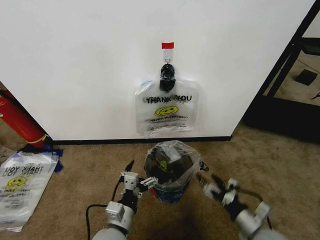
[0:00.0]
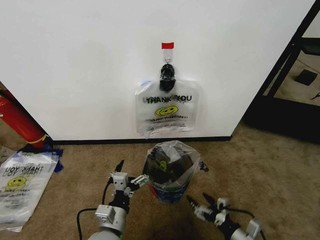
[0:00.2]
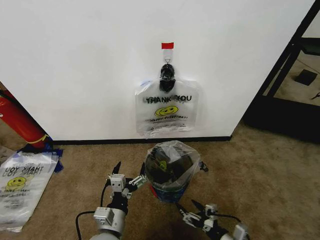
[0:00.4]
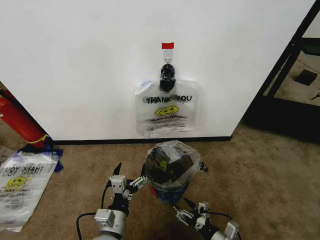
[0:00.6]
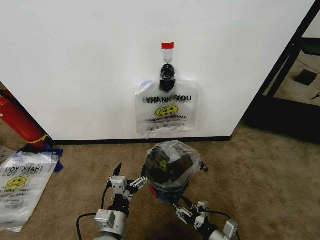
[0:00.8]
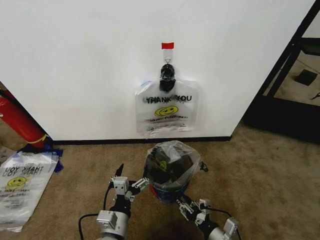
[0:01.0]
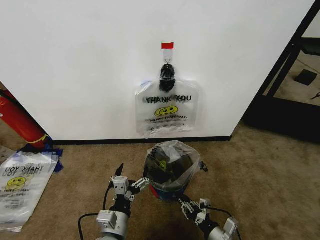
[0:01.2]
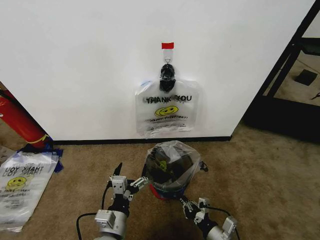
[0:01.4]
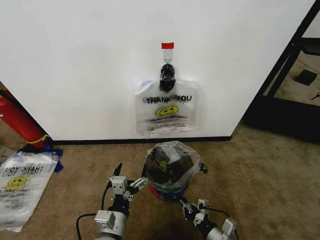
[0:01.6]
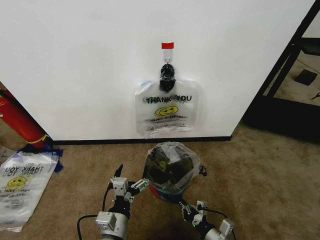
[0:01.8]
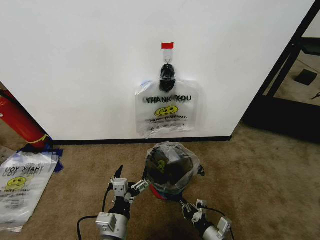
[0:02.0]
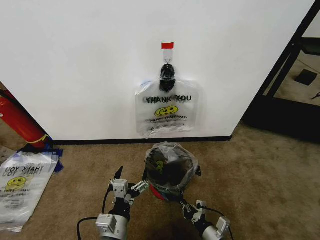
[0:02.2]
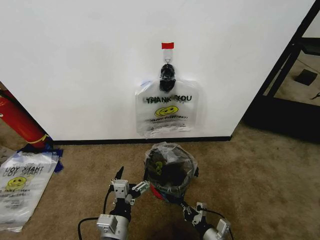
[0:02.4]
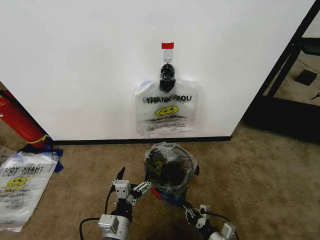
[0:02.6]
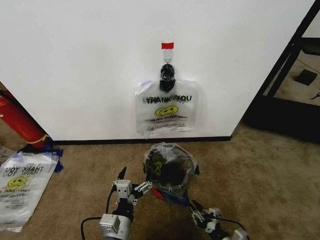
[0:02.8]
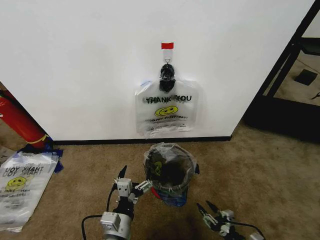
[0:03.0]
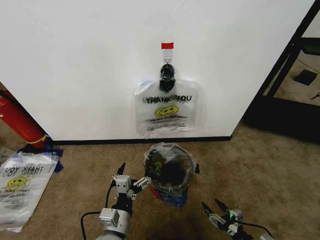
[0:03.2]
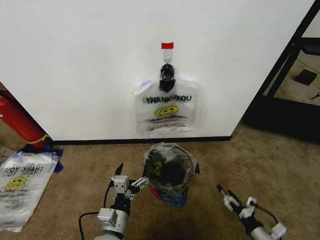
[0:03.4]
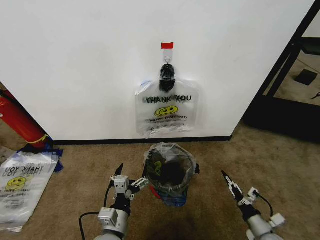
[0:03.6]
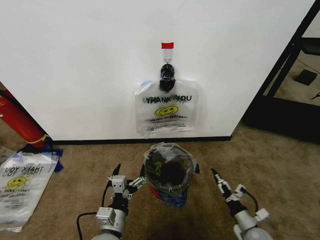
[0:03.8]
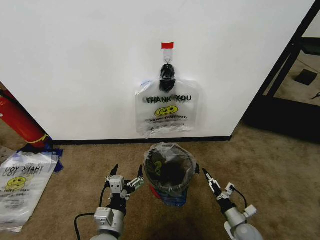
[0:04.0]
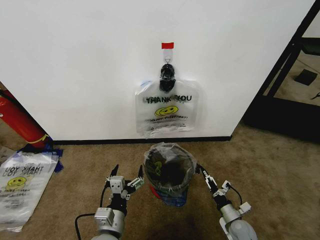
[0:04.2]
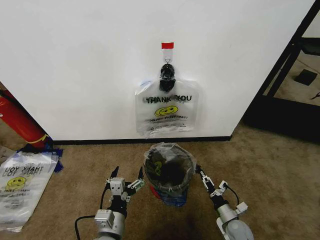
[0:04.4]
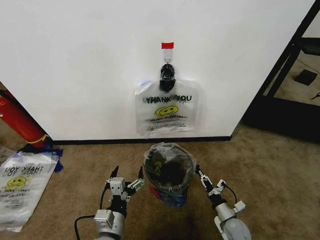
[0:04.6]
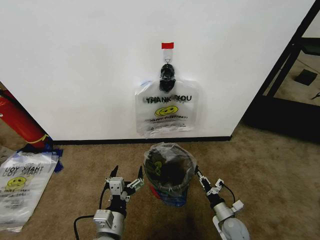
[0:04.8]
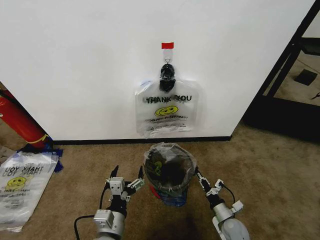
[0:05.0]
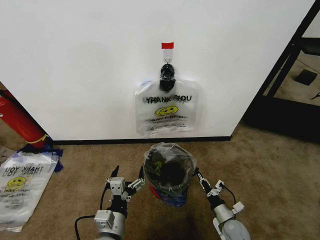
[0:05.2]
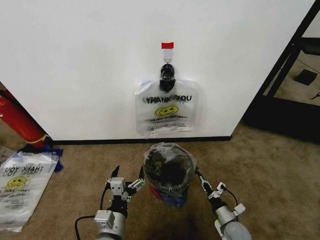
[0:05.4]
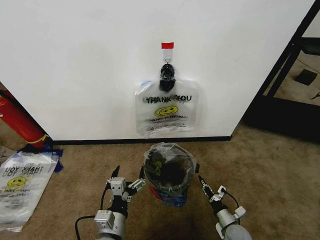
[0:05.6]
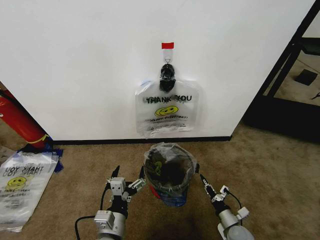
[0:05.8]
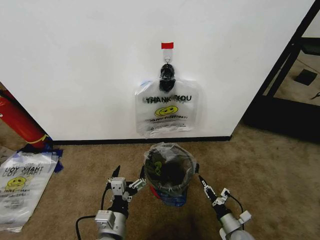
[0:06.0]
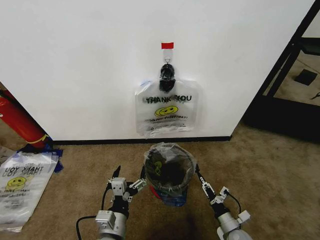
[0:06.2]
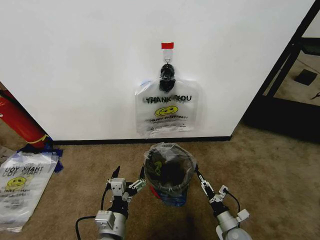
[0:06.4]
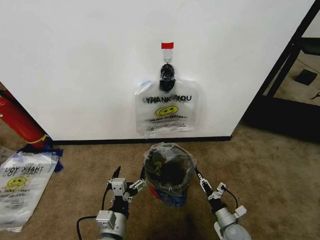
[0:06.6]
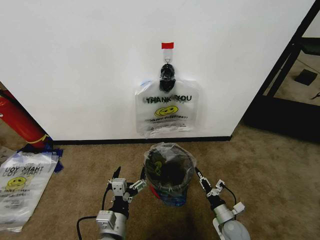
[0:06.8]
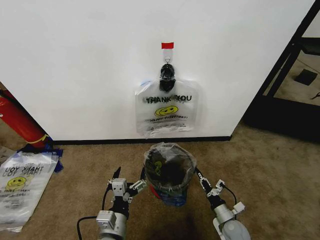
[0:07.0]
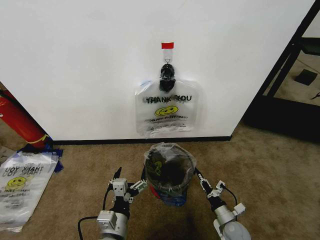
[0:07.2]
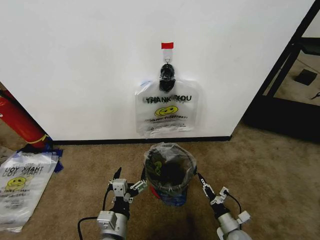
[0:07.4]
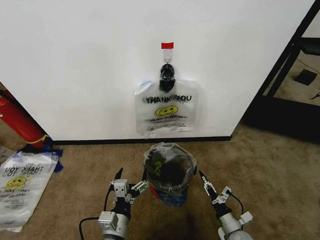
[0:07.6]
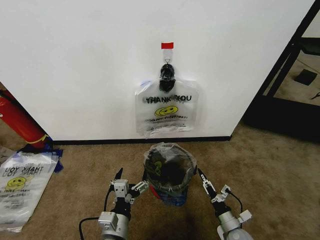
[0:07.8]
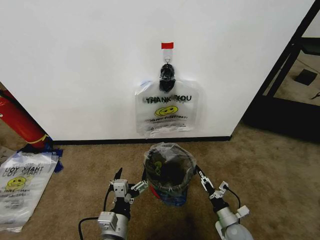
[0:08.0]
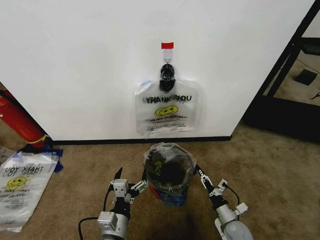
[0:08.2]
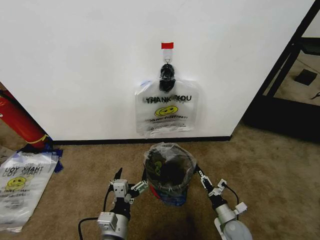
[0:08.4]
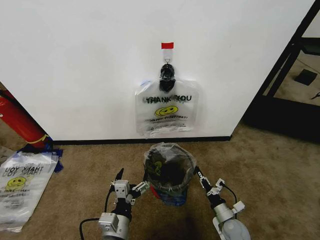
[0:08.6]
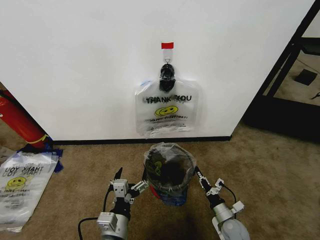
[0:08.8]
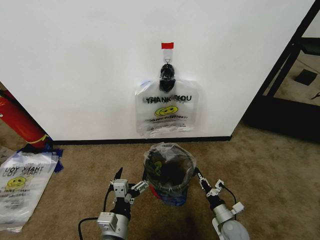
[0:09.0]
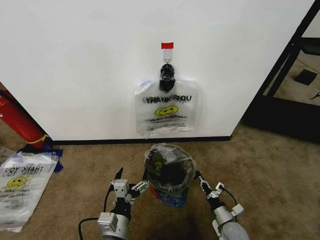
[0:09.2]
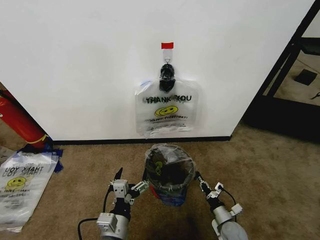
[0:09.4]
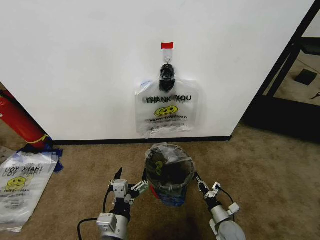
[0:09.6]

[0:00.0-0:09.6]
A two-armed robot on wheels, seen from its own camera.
Task of the whole recording: Pick up the garbage bag from the wall and place it over the trash bin.
0:00.0 to 0:01.6: The right gripper travels to the left and downward by approximately 10 cm, and closes up.
0:01.6 to 0:03.2: The right gripper moves to the right, roughly 10 cm, and opens its fingers.
0:03.2 to 0:04.8: The right gripper goes about 15 cm forward, downward and to the left, and closes.
0:04.8 to 0:06.4: The right gripper opens its fingers.
0:06.4 to 0:08.0: The right gripper closes and opens again.
0:08.0 to 0:09.6: The right gripper closes its fingers.

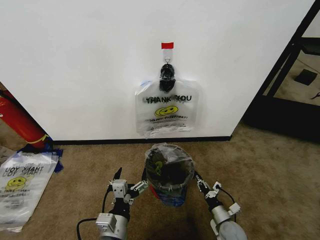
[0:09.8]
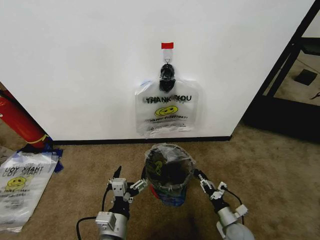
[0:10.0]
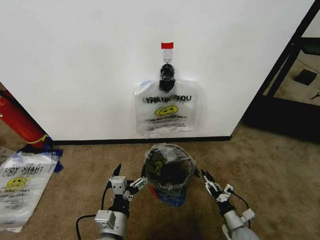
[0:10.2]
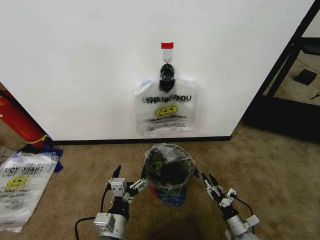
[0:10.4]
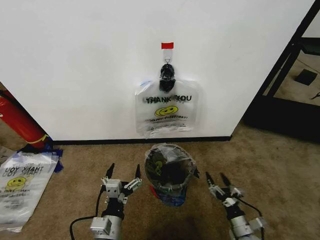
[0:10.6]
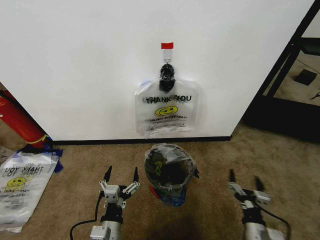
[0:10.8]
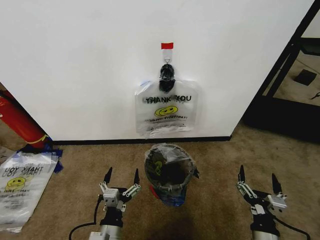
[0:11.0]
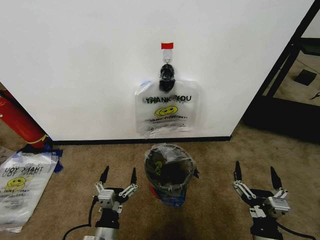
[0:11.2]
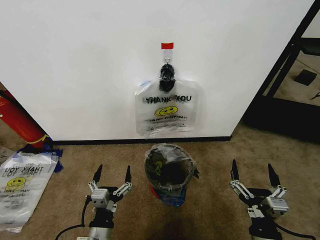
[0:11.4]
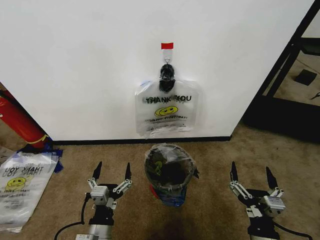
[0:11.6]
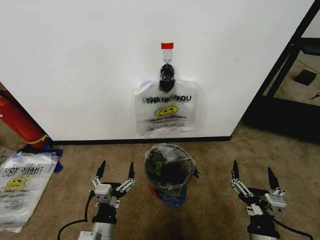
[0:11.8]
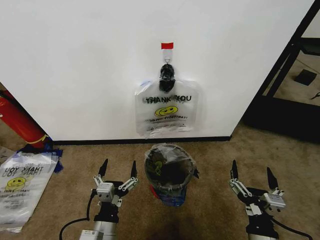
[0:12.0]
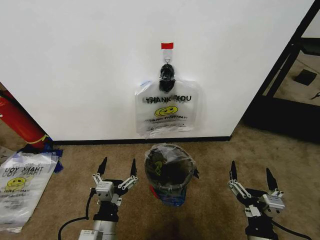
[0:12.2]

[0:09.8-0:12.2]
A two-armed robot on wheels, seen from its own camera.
Task of the whole recording: Pick up the garbage bag from the wall and place it over the trash bin.
0:09.8 to 0:11.0: The right gripper travels upward and backward by roughly 20 cm, and opens.
0:11.0 to 0:12.2: The right gripper shifts roughly 5 cm upward.

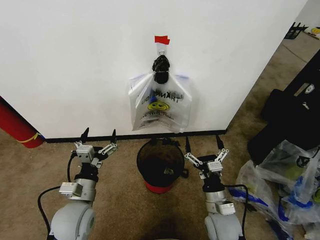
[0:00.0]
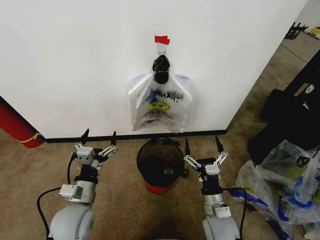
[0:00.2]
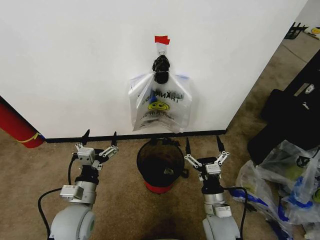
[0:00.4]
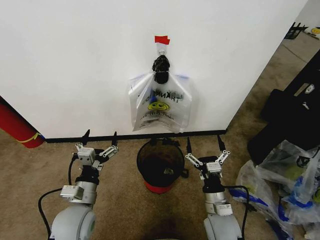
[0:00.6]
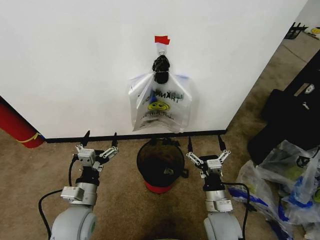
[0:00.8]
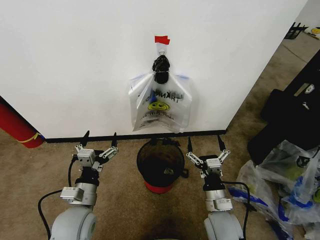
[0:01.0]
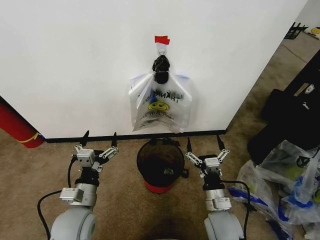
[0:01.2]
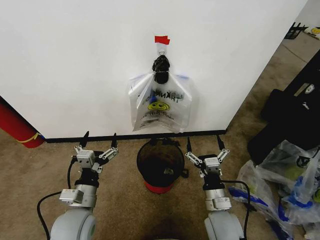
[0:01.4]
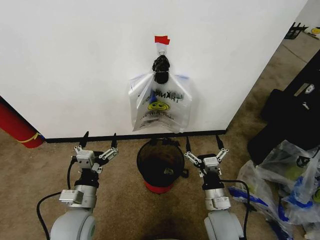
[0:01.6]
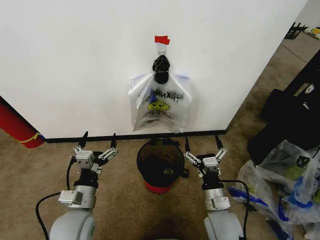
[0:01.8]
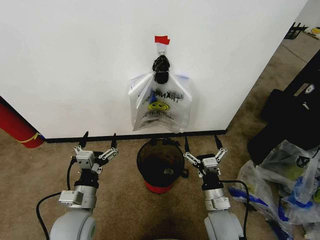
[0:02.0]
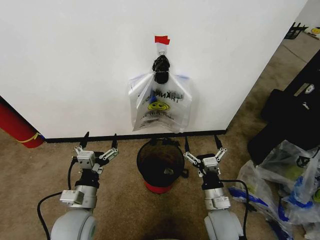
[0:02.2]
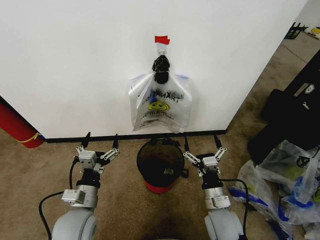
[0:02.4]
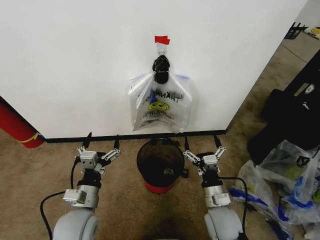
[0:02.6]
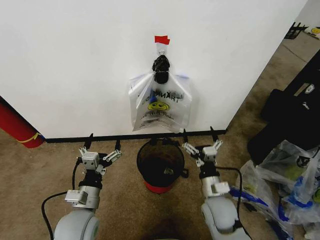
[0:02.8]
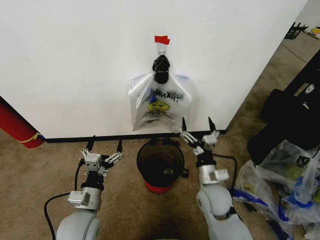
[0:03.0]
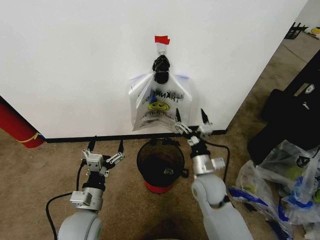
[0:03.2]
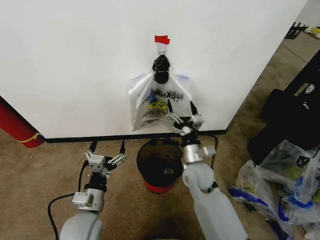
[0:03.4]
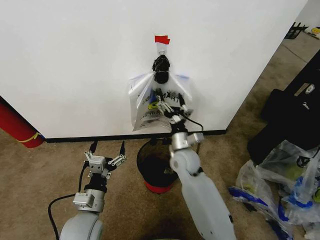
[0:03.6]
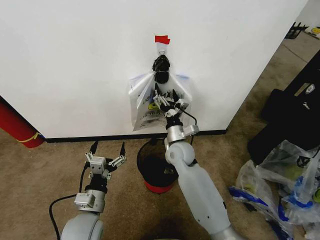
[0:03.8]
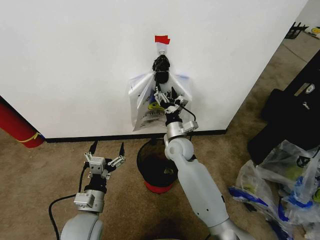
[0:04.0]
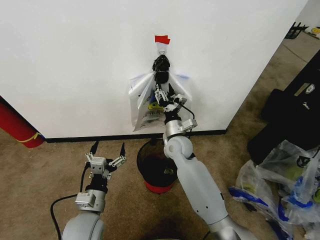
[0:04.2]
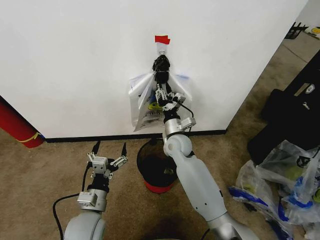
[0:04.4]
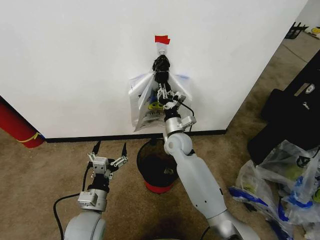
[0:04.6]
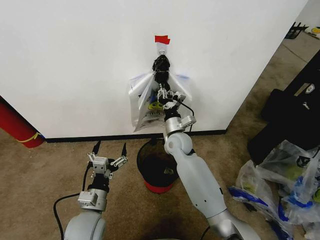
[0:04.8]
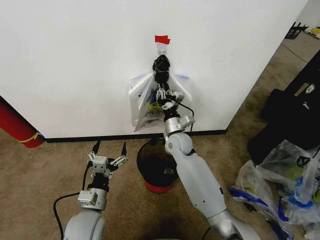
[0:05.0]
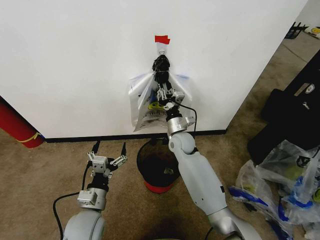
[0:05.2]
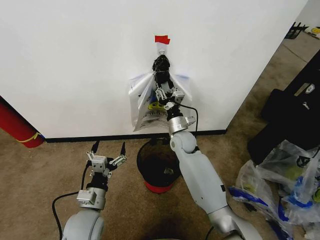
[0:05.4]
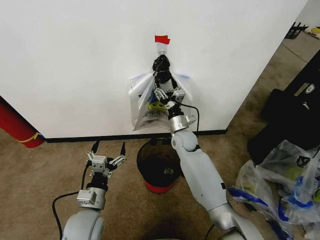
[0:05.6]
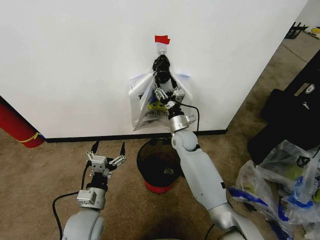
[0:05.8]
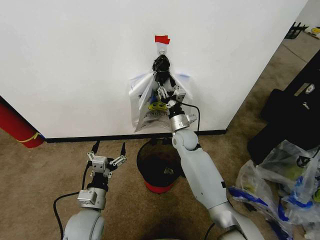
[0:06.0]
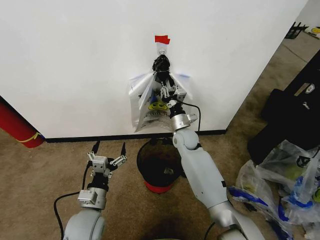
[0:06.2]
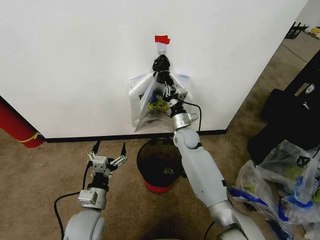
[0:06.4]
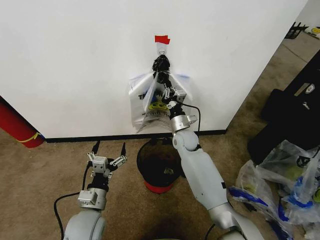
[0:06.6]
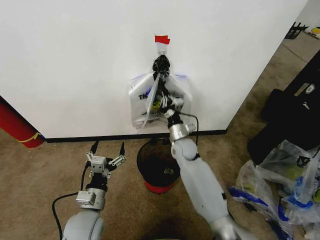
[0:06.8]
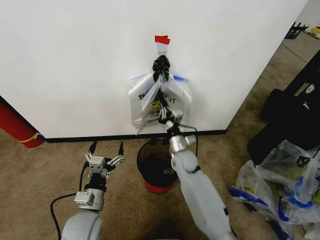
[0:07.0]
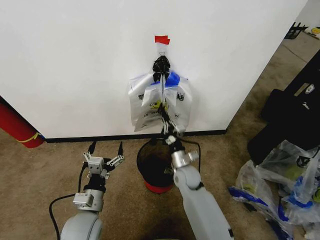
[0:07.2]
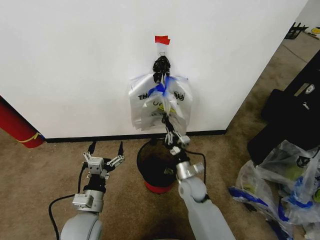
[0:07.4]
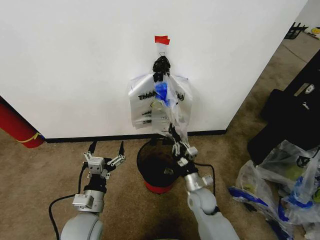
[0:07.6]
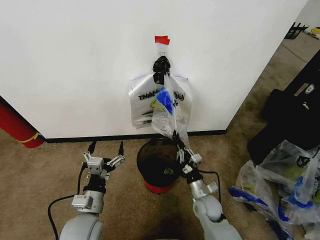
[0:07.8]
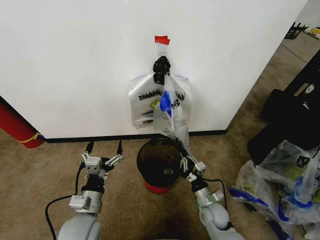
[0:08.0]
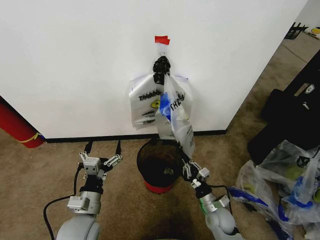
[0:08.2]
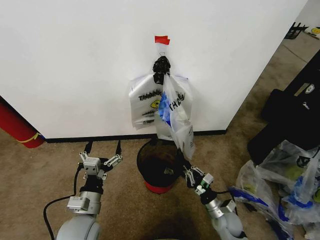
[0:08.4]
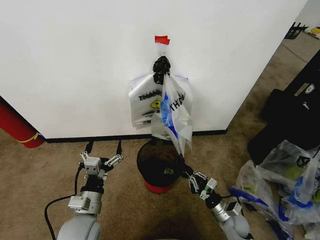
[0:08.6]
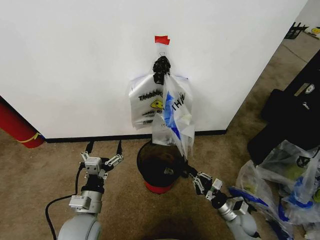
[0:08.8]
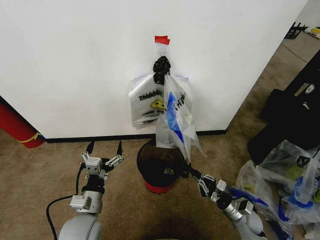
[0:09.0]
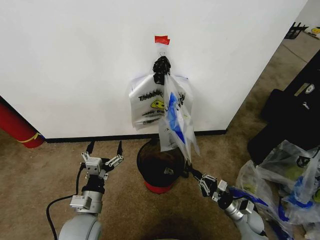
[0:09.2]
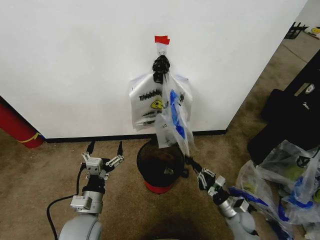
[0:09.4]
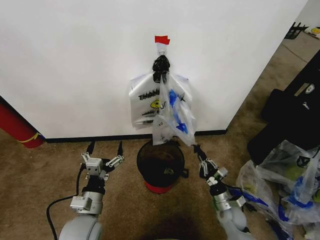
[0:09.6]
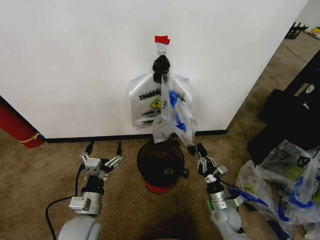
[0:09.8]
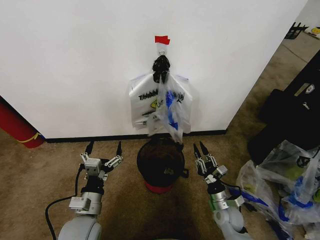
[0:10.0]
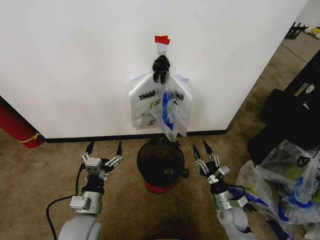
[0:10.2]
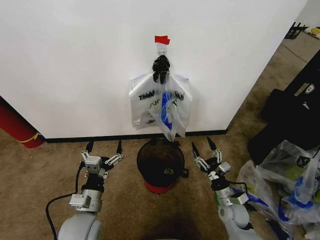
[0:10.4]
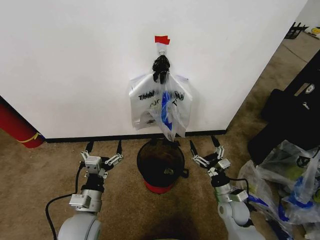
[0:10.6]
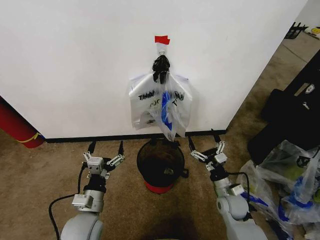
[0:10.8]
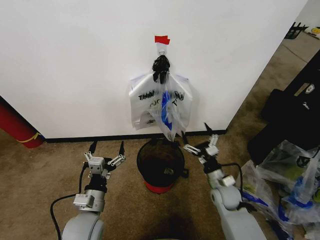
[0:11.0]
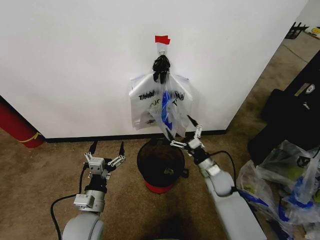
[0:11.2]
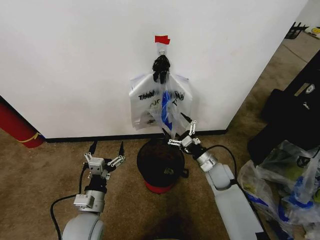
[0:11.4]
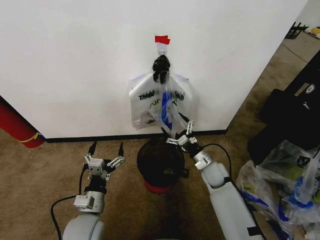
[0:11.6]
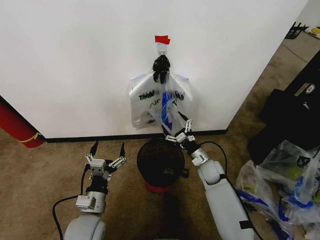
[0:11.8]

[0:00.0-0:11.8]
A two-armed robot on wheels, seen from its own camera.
Task of the whole recording: Pick up the garbage bag from the wall and place it over the trash bin.
0:01.4 to 0:03.0: The right gripper goes approximately 5 cm forward.
0:03.0 to 0:04.4: The right gripper heads forward and to the left, covering some 20 cm, and closes up.
0:04.4 to 0:06.0: The right gripper ends up some 5 cm from where it was.
0:06.0 to 0:07.4: The right gripper heads backward and downward, covering about 20 cm, and closes.
0:07.4 to 0:08.8: The right gripper shifts some 20 cm to the right, downward and backward.
0:08.8 to 0:10.4: The right gripper ends up about 5 cm from where it was, and opens.
0:10.4 to 0:11.8: The right gripper moves forward and to the left, some 15 cm.
